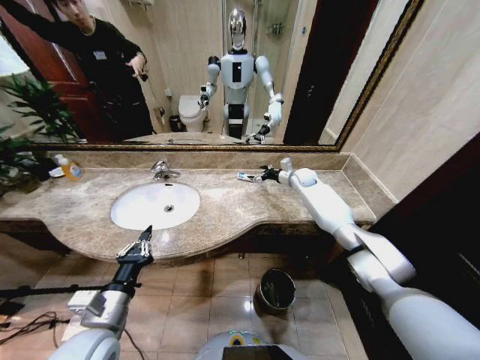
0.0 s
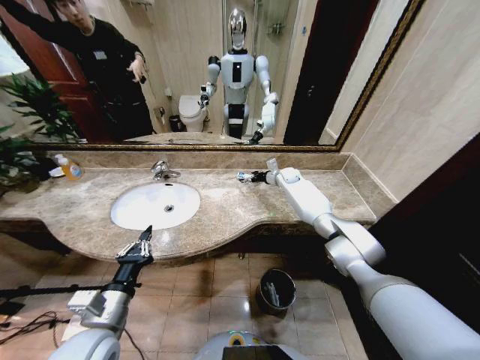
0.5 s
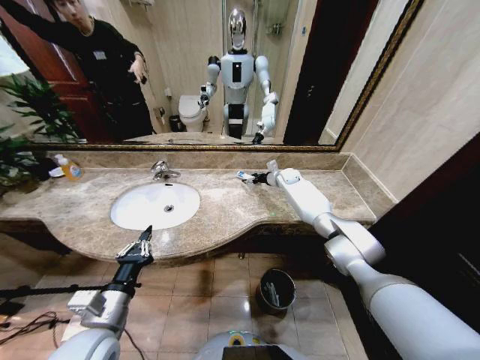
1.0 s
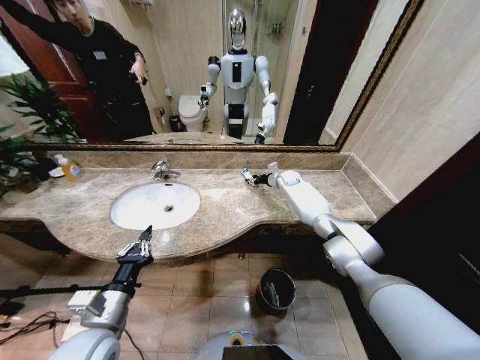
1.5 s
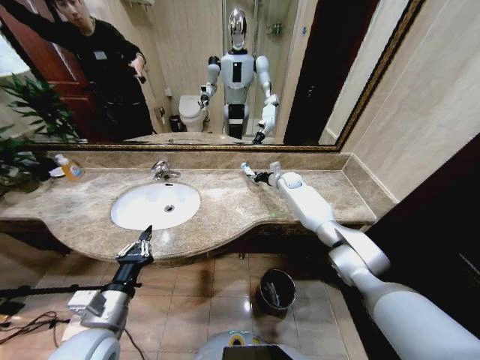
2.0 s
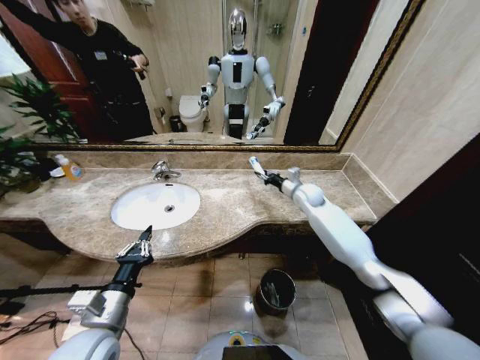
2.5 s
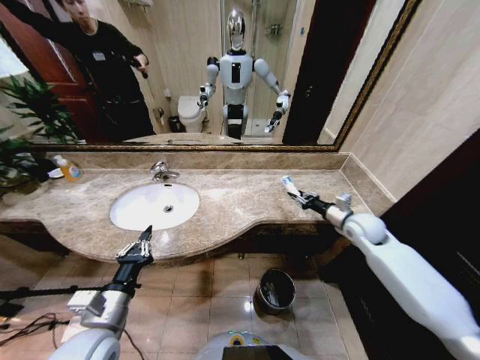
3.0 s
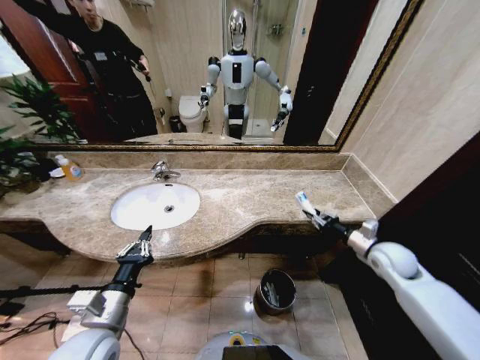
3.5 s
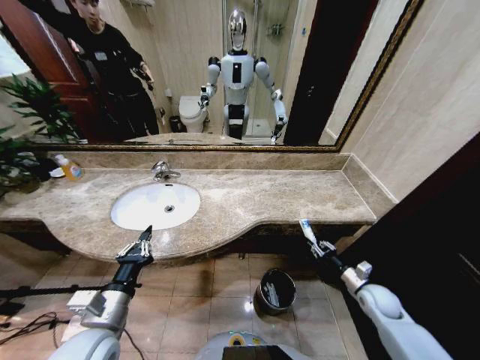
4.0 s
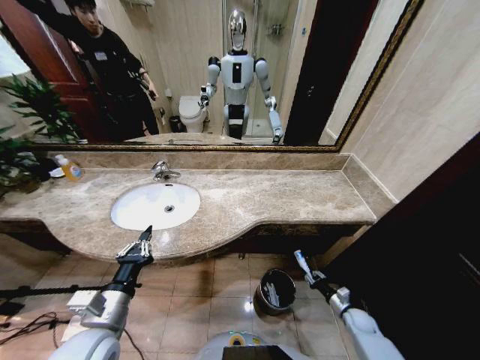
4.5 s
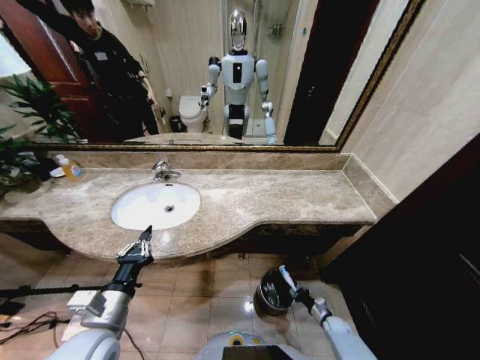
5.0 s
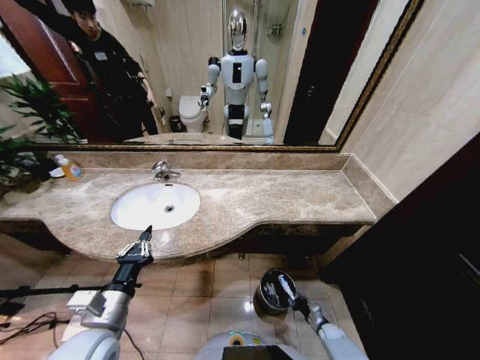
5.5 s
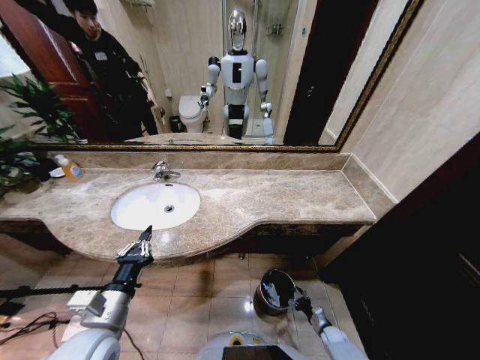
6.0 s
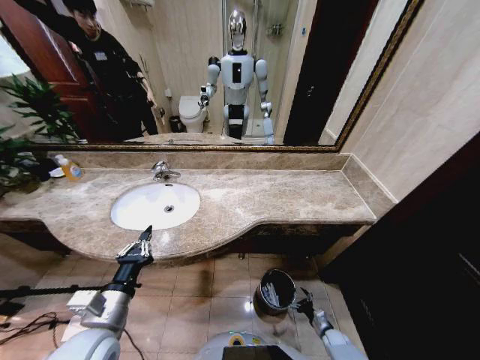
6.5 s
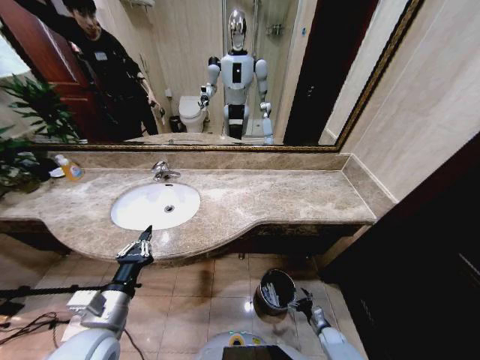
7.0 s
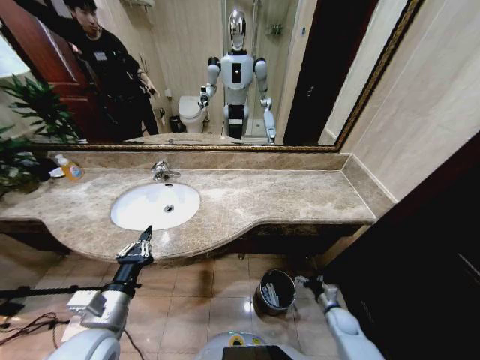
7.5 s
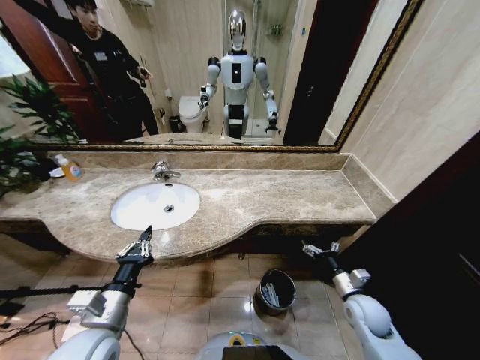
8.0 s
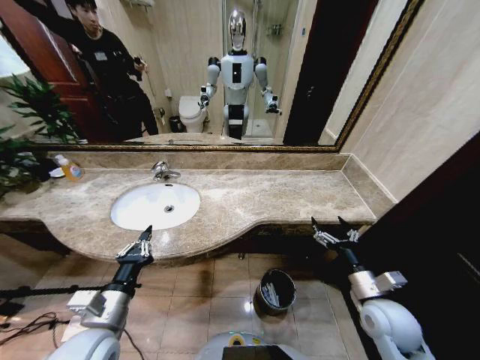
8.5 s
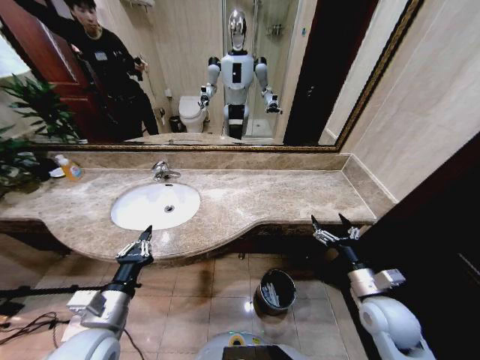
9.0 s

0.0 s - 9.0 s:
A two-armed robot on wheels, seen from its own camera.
Task of the whole recording: Pick up the trash from the sink and place it in the trash bin.
0.0 s - 2.0 s: The right gripper closes its fingers.
2.0 s - 4.5 s: The right gripper travels backward, downward and to the right by approximately 60 cm.
4.5 s - 7.0 s: The right gripper shifts some 15 cm downward and to the left, and opens its fingers.
7.0 s - 9.0 s: The right gripper travels upward by some 40 cm.
